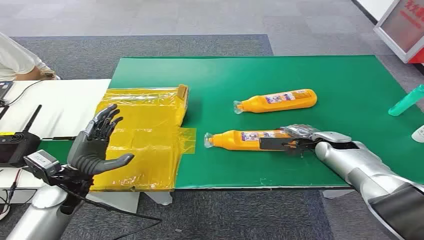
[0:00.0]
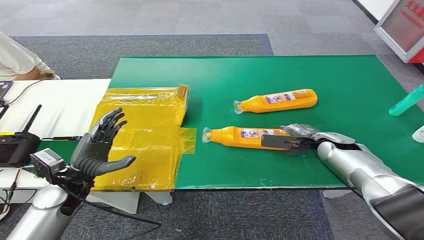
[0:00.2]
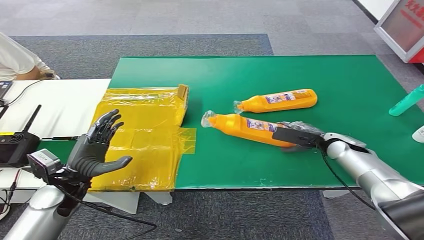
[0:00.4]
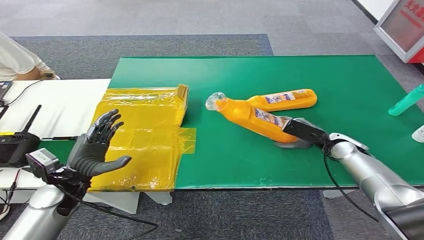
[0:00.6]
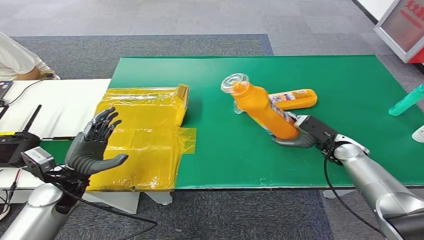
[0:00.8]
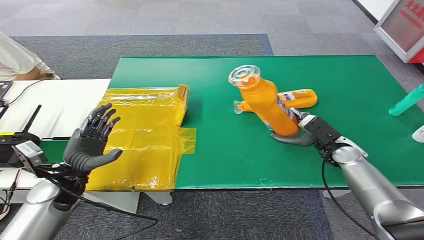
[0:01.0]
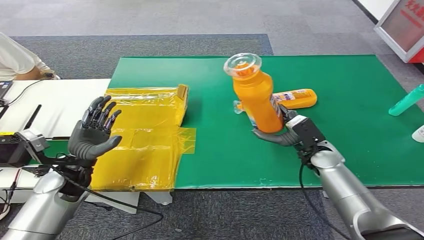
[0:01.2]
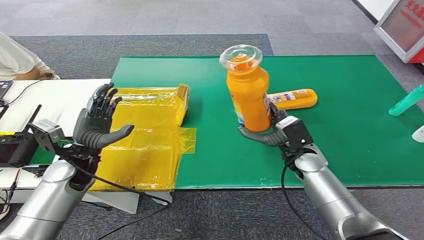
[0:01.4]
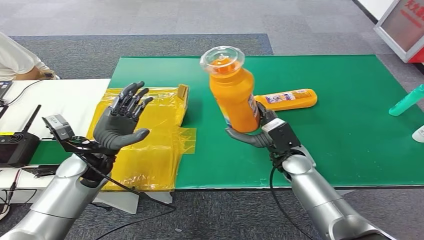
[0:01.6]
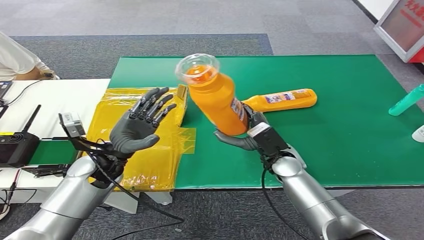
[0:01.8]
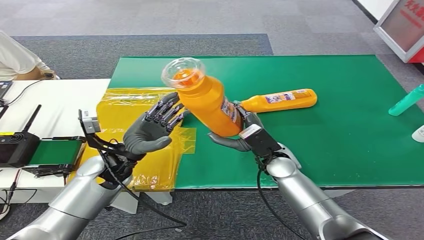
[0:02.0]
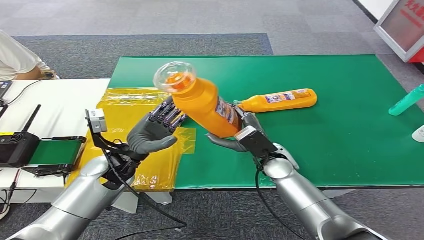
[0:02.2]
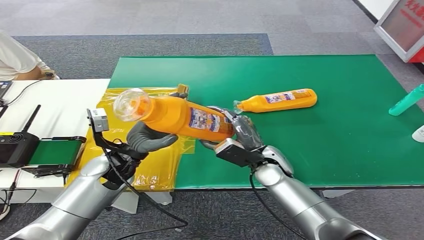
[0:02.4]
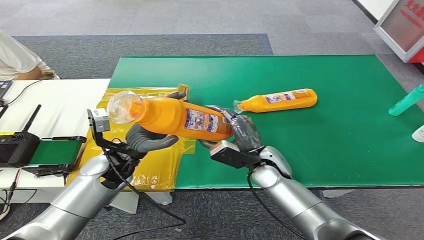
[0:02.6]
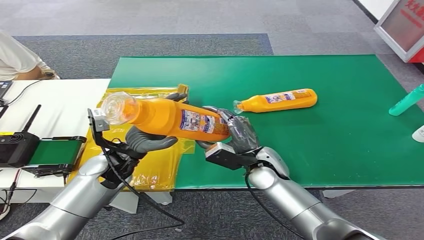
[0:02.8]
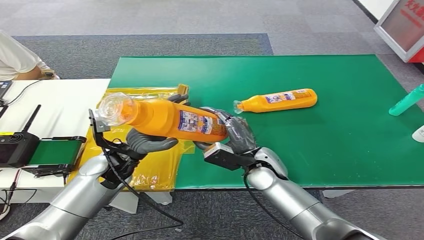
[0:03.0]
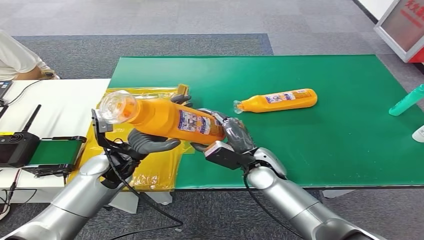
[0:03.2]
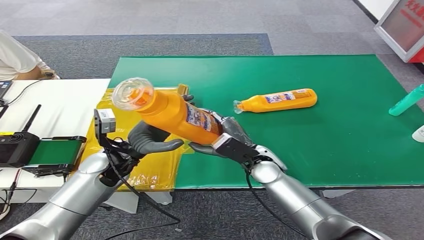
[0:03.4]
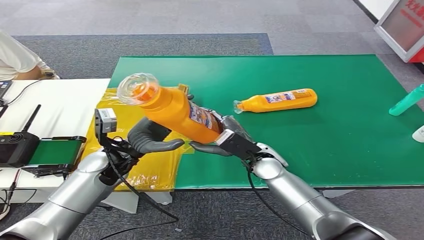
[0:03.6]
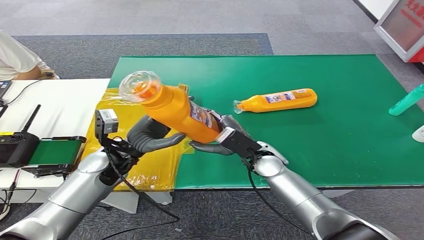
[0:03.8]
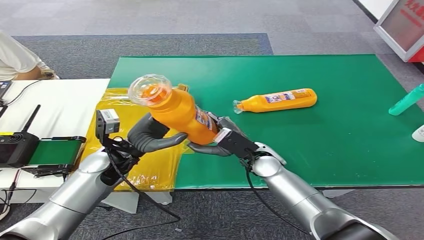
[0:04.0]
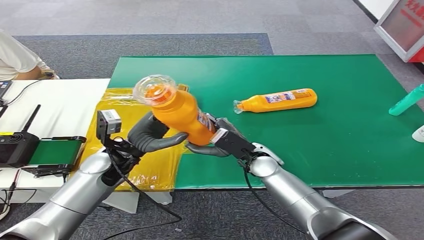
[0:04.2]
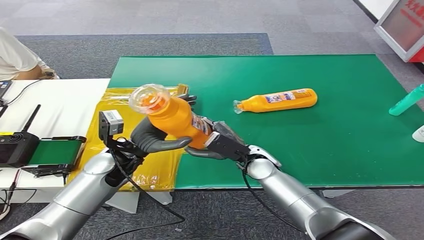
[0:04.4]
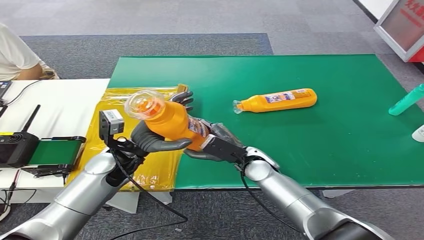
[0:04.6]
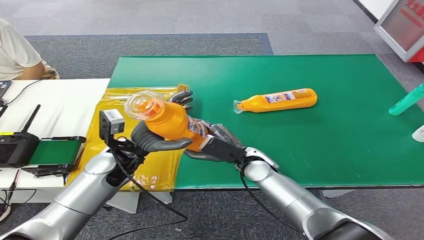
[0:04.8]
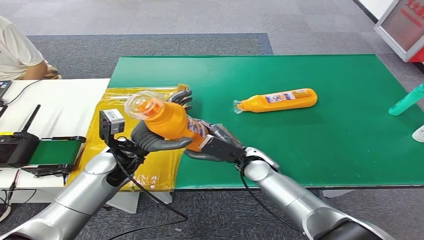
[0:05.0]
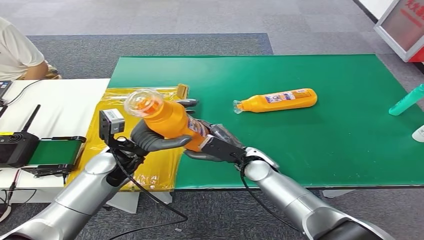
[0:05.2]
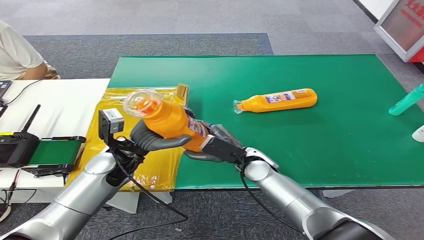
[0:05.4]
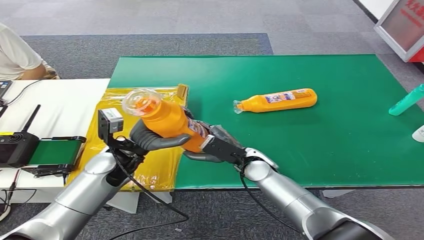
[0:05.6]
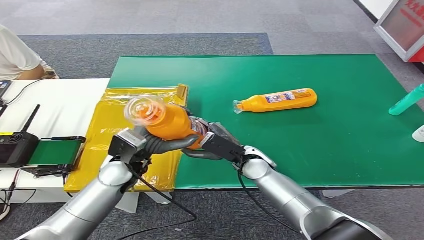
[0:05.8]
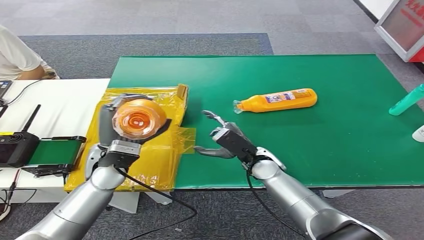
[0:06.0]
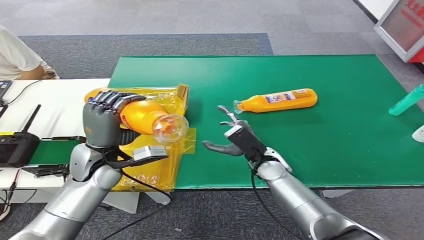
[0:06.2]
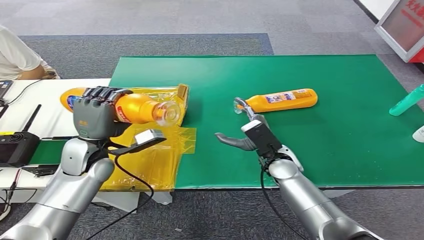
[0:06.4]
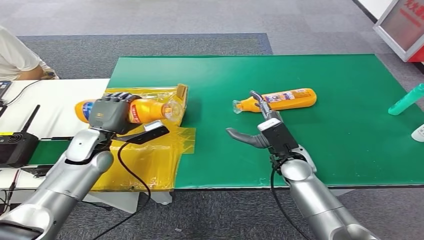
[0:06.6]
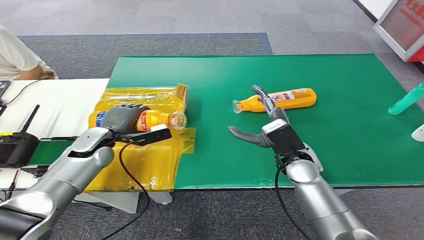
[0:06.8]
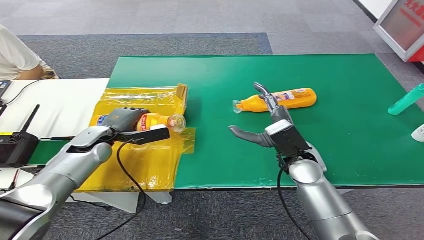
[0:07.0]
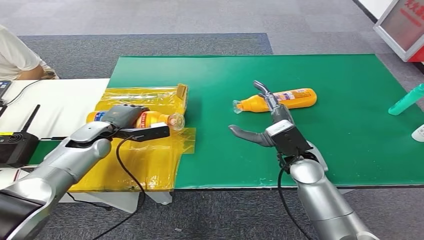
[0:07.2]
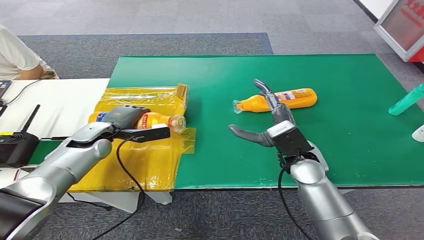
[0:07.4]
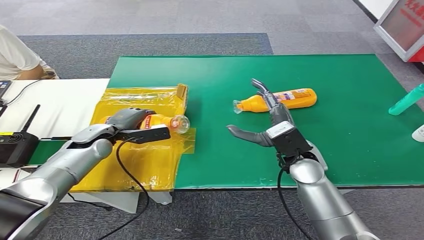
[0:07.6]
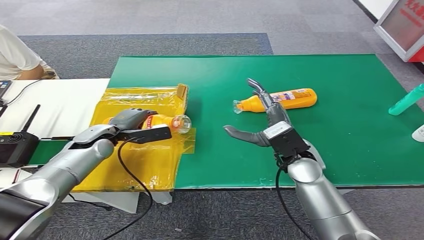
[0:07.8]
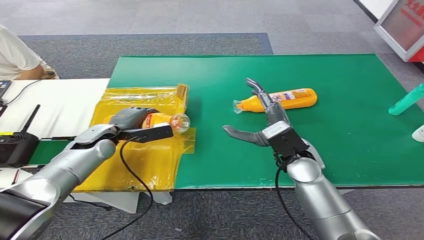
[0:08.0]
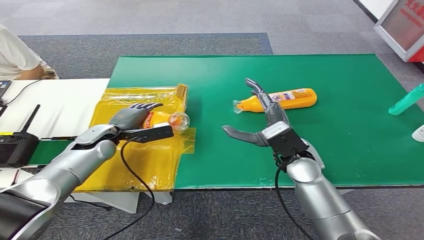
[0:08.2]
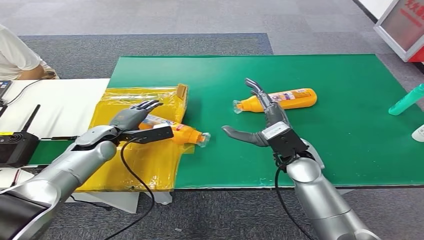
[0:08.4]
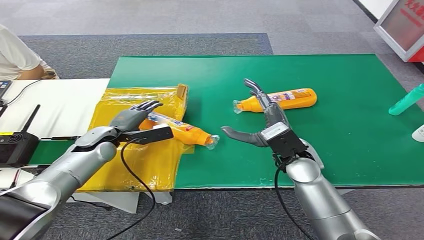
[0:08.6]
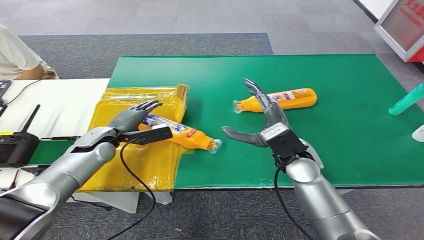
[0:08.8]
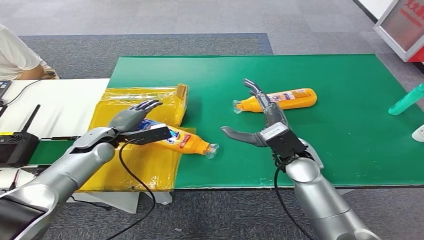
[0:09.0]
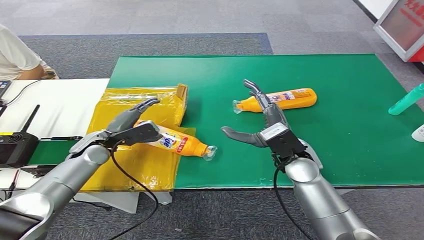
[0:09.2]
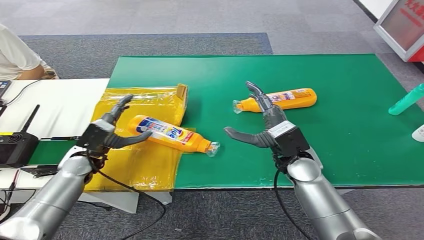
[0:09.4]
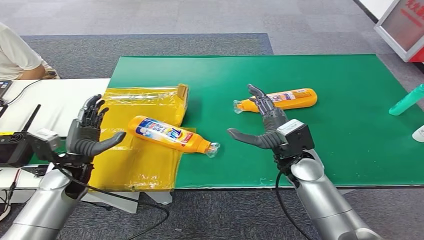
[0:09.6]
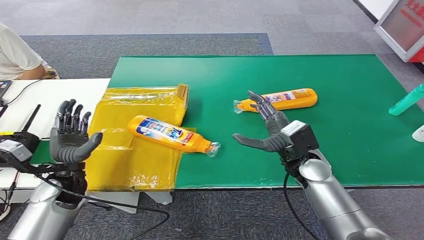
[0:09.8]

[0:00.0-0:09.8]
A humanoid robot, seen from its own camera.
Step, 0.0 to 1.0 s: Pick up the bottle from the table.
Step, 5.4 to 9.8 s: Turn the bottle to the front side.
4.2 to 5.6 s: The hands move only a little.
7.0 to 8.4 s: The hands make only small movements.
8.4 to 9.8 s: The left hand is displaced backward by about 15 cm.

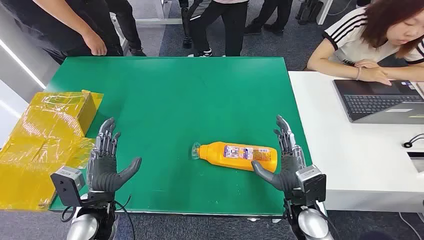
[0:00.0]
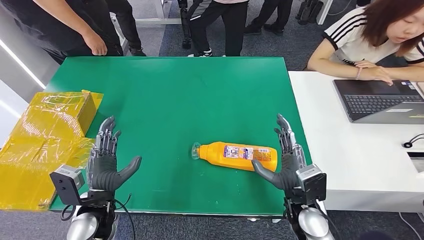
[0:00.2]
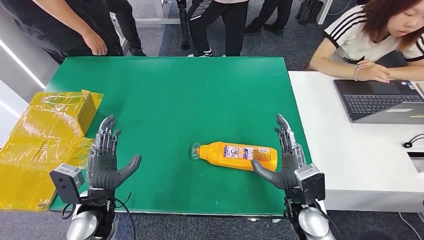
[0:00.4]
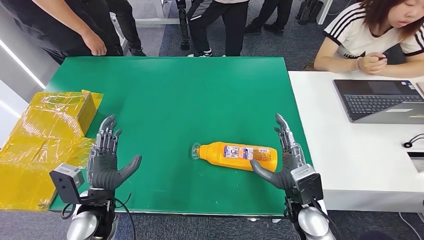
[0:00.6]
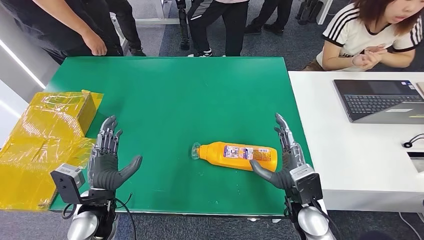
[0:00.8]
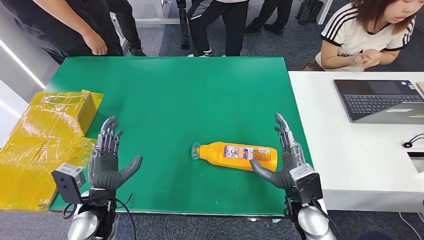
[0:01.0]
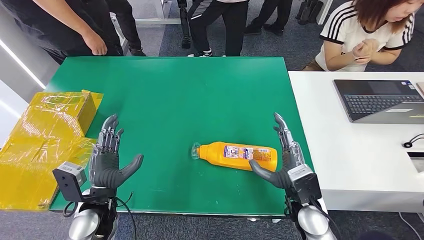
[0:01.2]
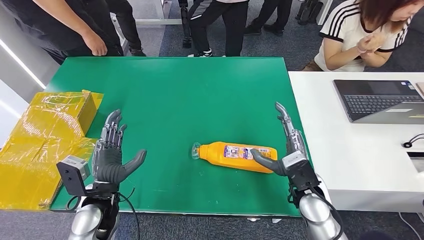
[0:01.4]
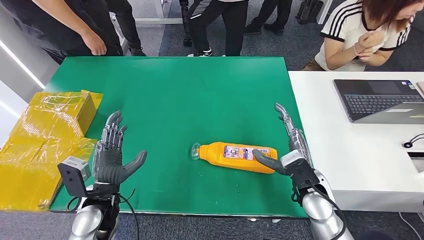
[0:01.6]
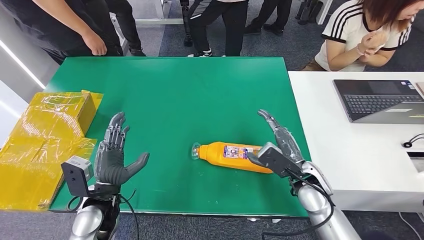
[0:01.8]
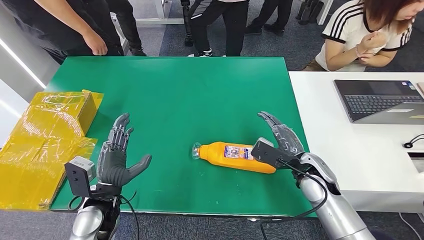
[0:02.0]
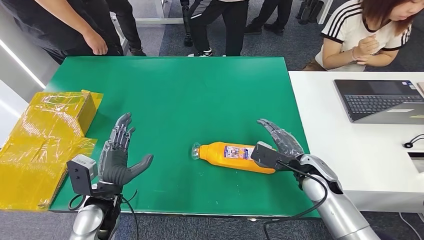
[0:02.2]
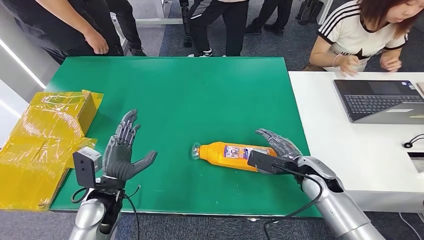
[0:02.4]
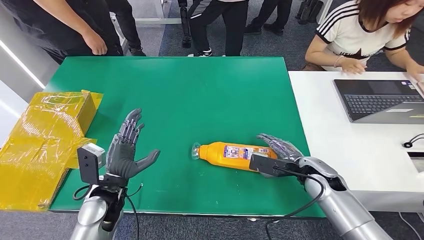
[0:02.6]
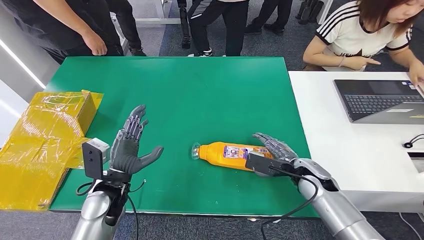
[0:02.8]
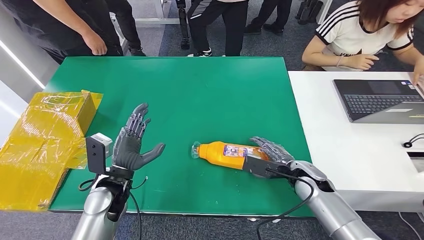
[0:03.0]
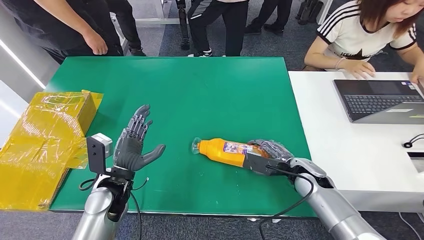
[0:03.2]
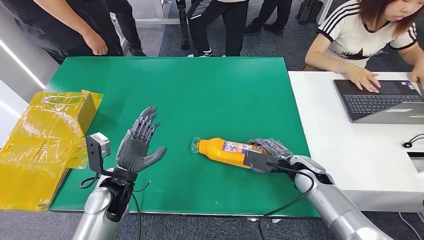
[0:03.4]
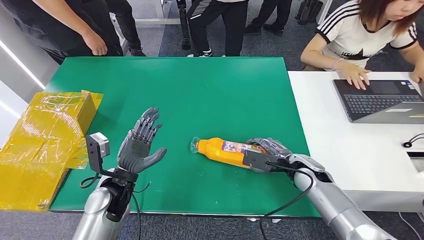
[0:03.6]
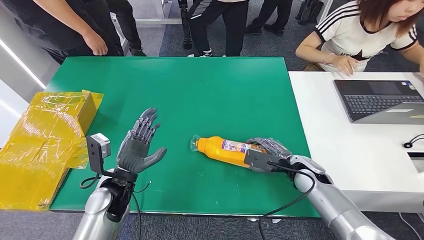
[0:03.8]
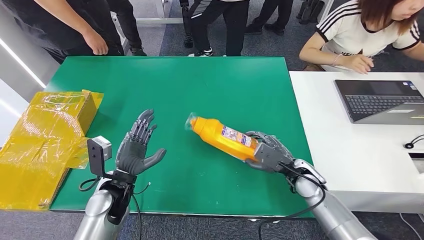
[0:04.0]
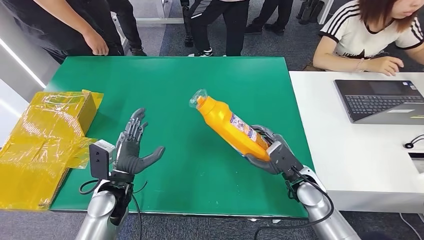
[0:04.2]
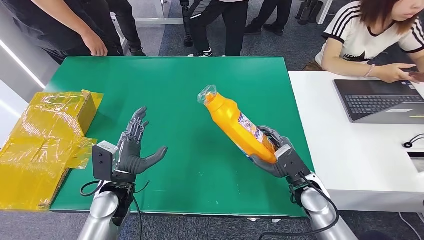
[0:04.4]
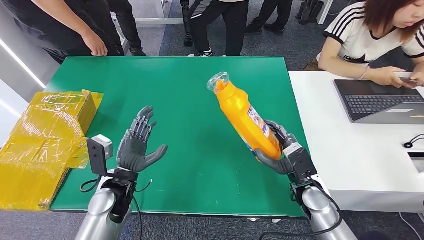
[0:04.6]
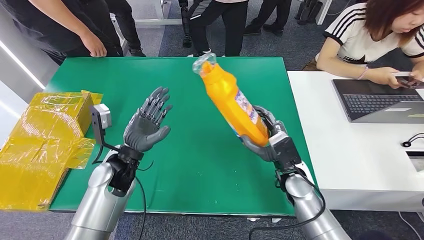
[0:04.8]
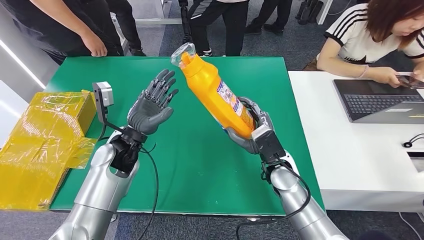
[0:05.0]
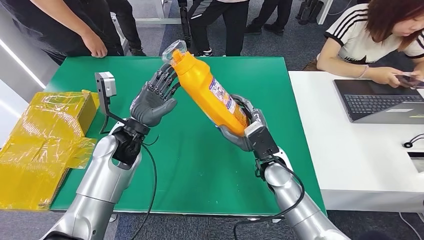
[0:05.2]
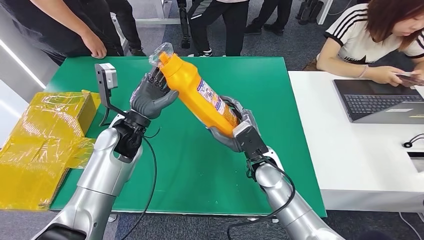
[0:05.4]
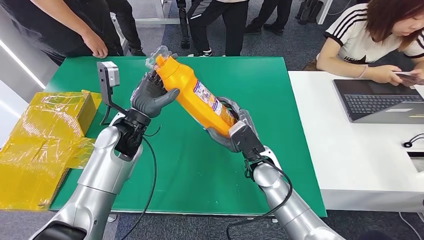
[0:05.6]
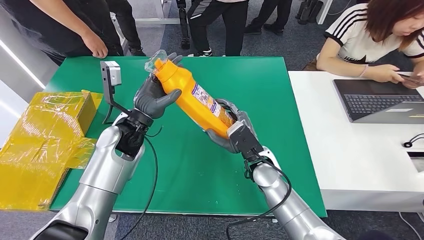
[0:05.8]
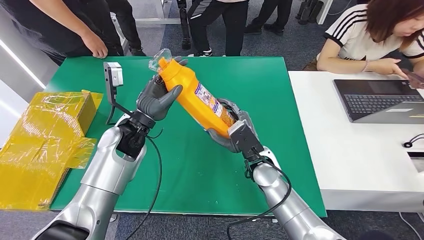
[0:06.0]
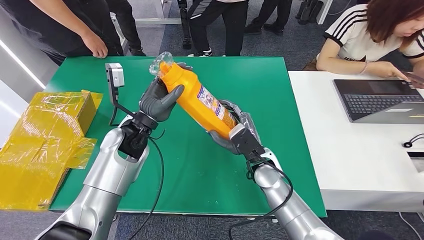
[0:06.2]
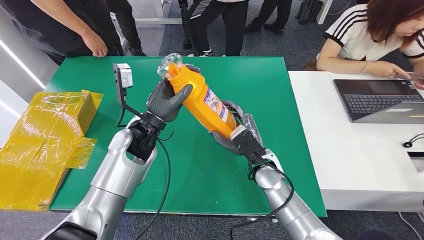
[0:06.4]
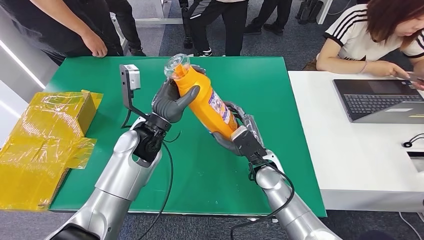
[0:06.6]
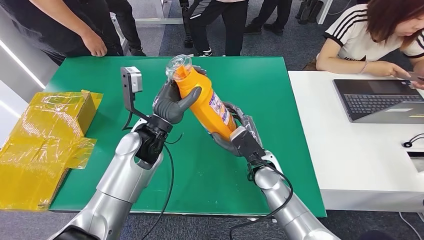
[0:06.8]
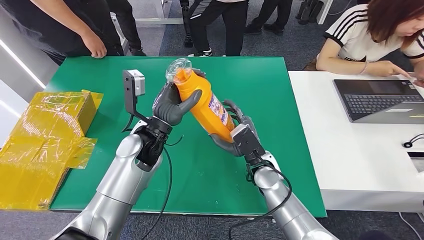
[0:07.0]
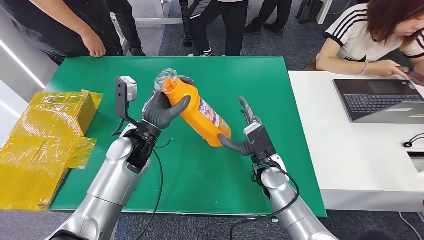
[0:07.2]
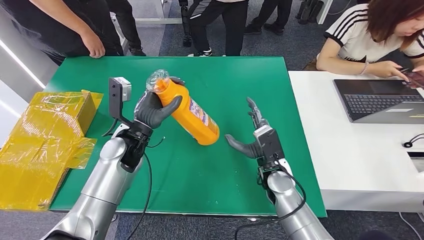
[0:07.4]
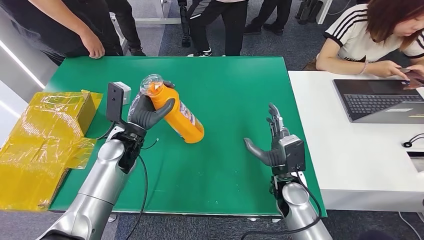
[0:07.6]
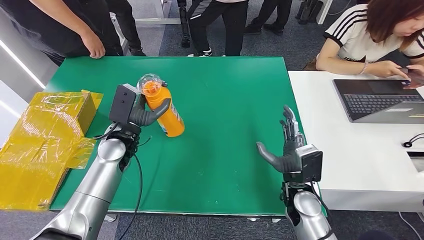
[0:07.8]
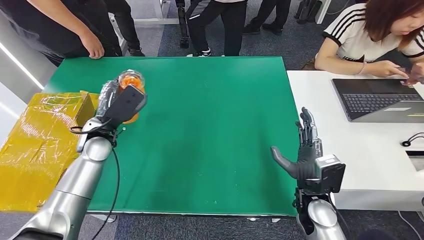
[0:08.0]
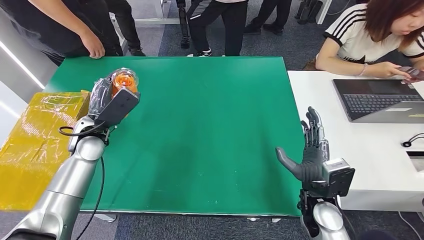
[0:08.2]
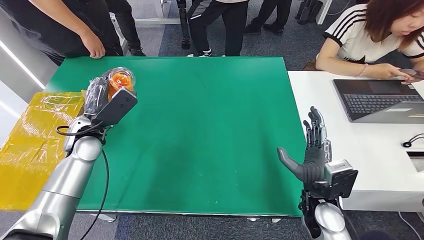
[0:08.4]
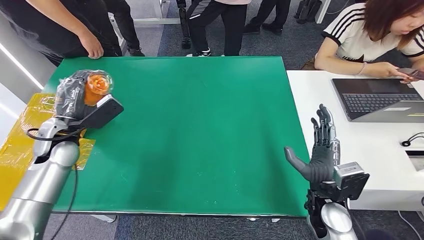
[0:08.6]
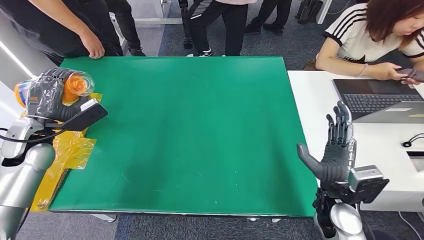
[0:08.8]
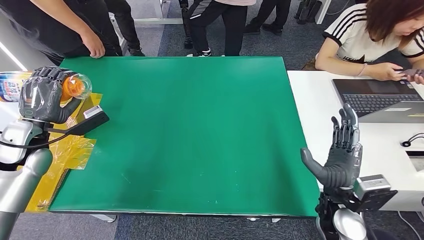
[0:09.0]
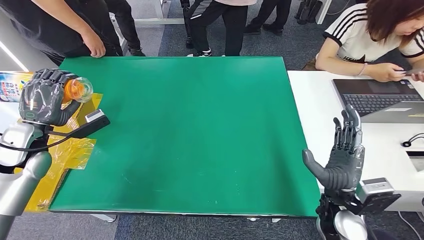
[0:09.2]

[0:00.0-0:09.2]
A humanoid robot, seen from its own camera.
Step, 0.0 to 8.2 s: Pick up the bottle from the table.
1.6 to 3.0 s: The right hand shifts by roughly 5 cm.
6.2 to 7.6 s: The right hand goes approximately 5 cm to the right. Meanwhile the left hand ends up roughly 5 cm from where it was.
